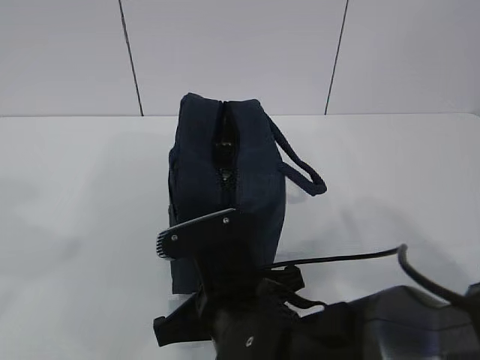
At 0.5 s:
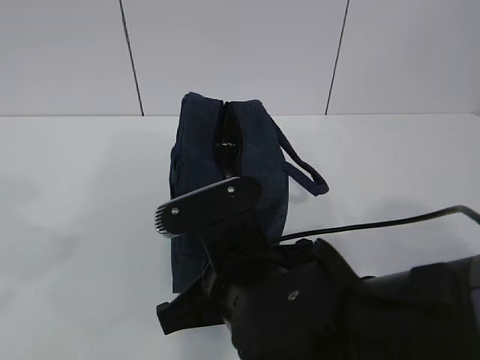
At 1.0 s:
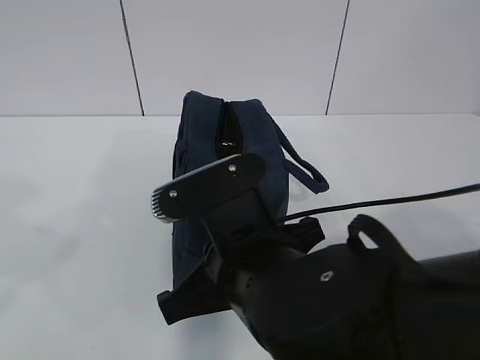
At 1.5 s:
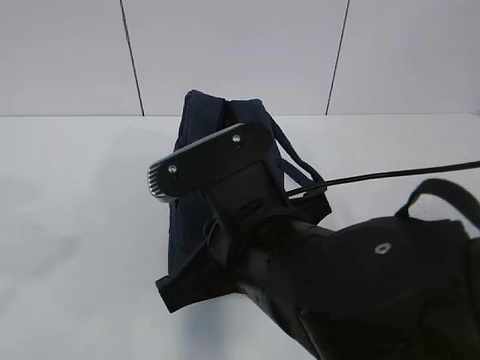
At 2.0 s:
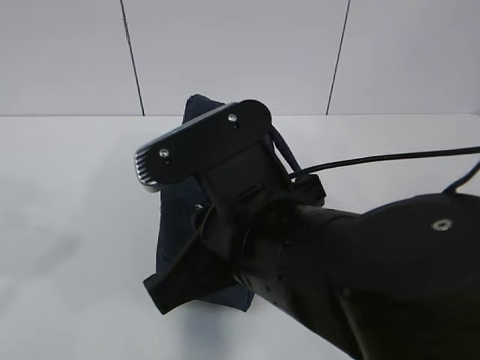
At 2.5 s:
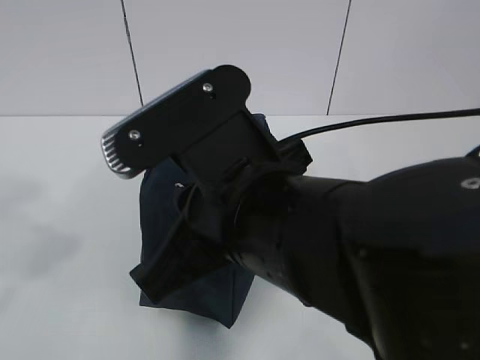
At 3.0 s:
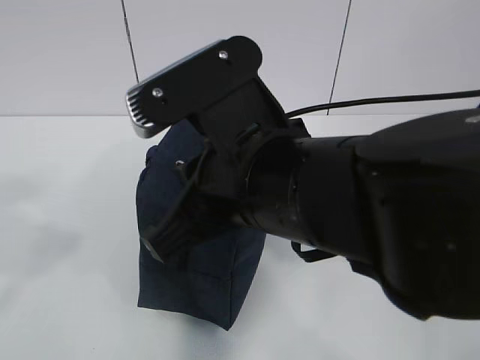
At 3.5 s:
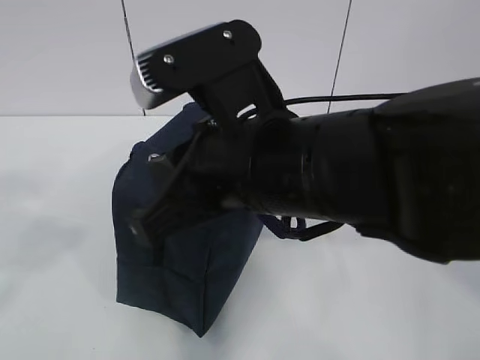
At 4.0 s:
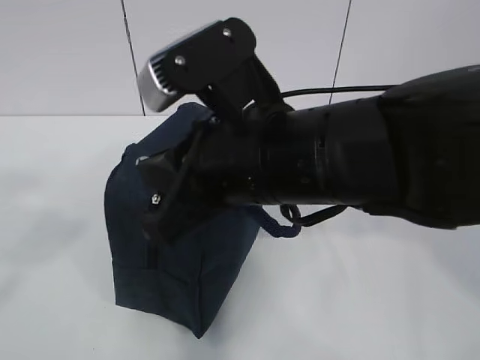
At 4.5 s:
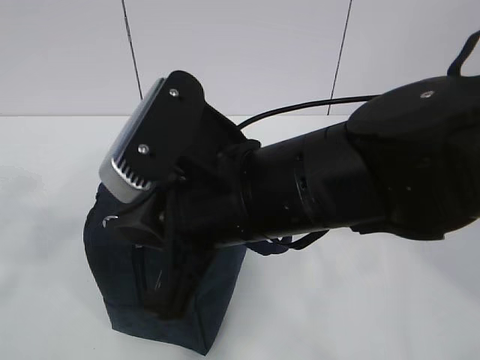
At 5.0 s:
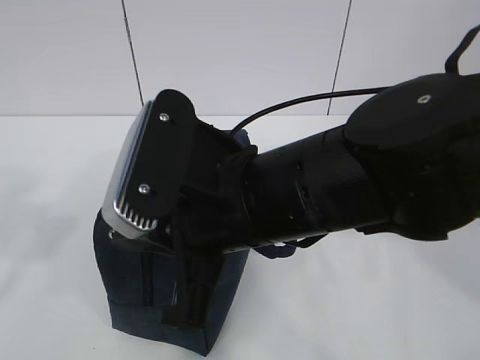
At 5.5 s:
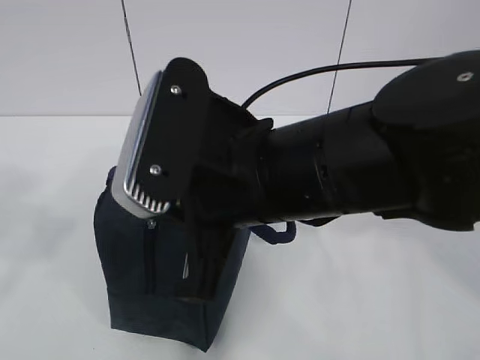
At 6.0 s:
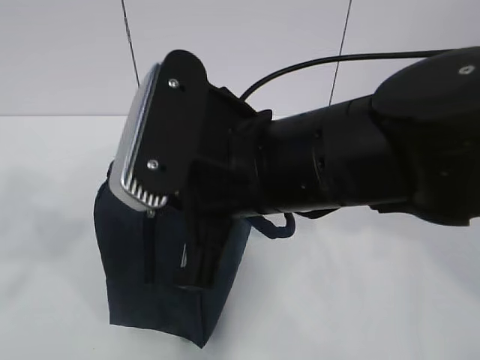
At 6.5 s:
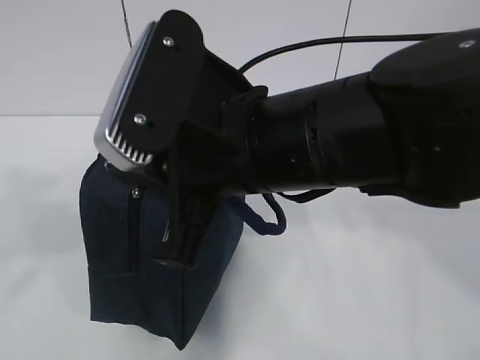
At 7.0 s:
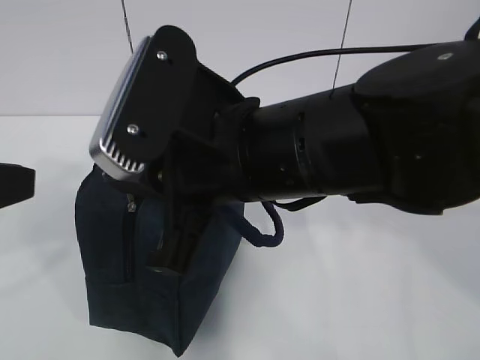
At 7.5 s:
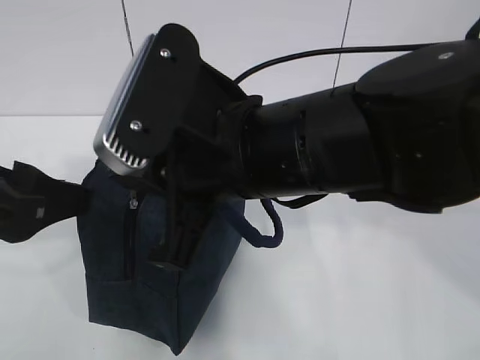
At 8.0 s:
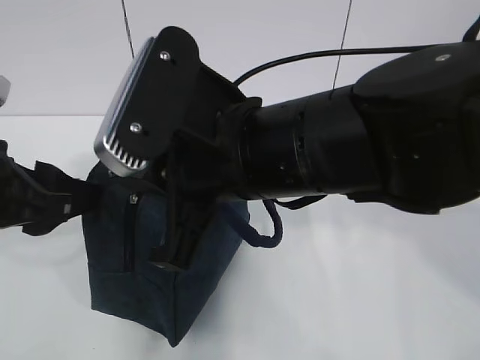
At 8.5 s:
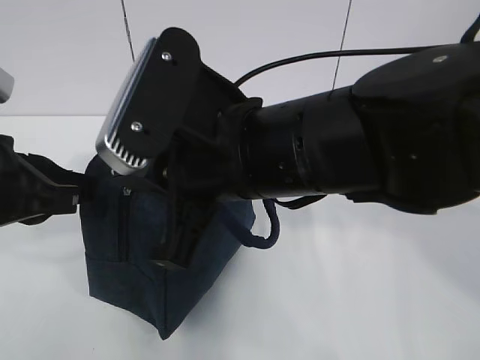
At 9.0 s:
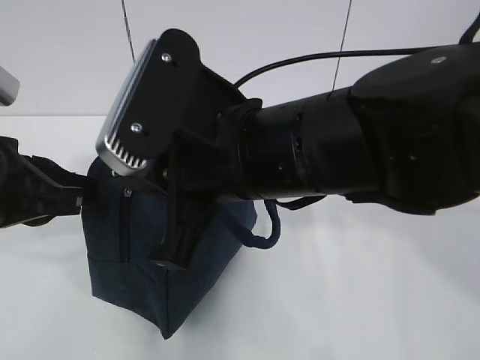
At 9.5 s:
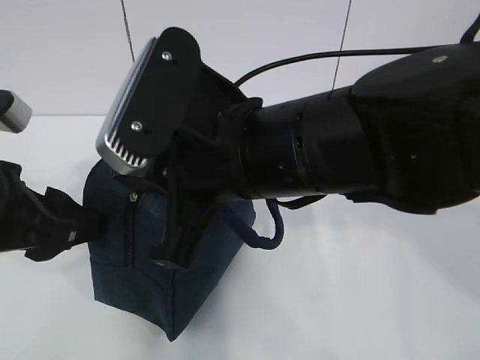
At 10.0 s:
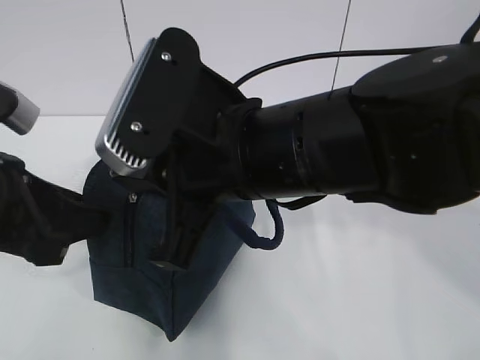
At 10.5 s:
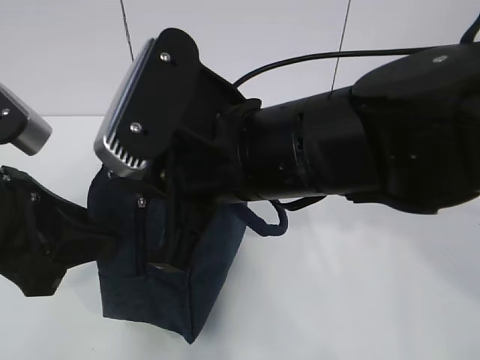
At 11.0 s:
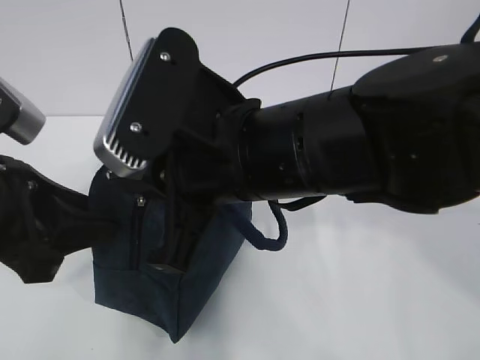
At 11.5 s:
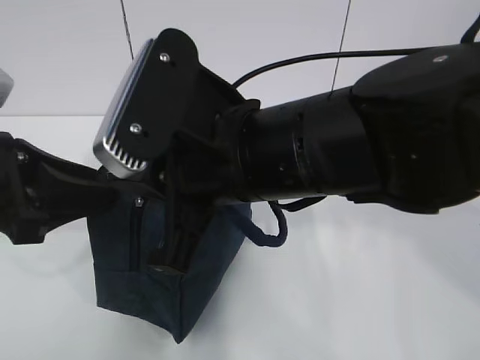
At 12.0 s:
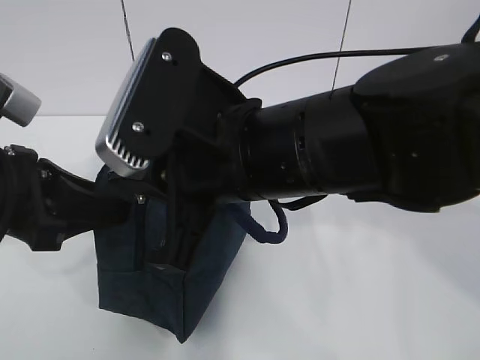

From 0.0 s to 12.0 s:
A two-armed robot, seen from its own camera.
From 0.0 s to 2.0 s: The right gripper heads upward, covering some 10 cm.
From 2.0 s to 4.0 s: The right gripper changes place by some 5 cm.
From 6.0 s to 8.0 s: The left gripper shifts approximately 15 cm forward, downward and to the right.
From 8.0 s to 10.0 s: The left gripper closes, then opens again.
From 10.0 s to 12.0 s: The grippers stay close to where they were, moving slightly.

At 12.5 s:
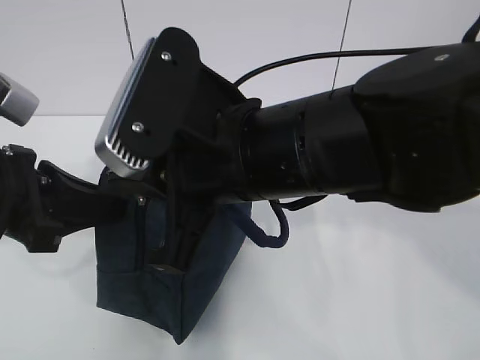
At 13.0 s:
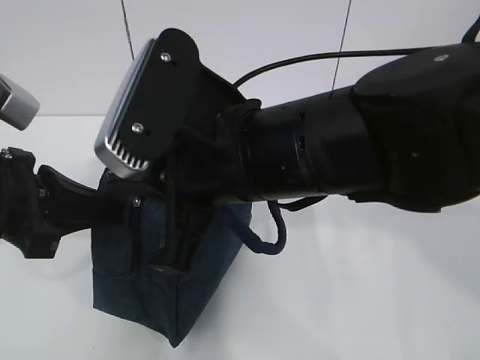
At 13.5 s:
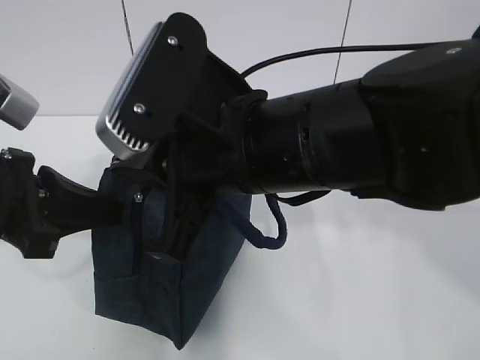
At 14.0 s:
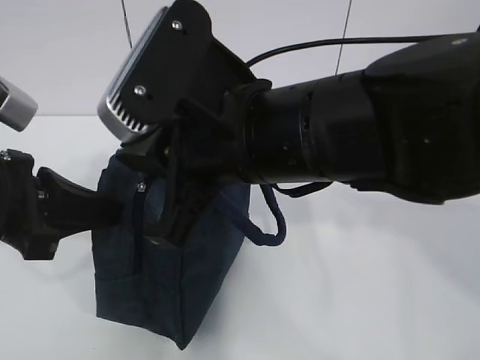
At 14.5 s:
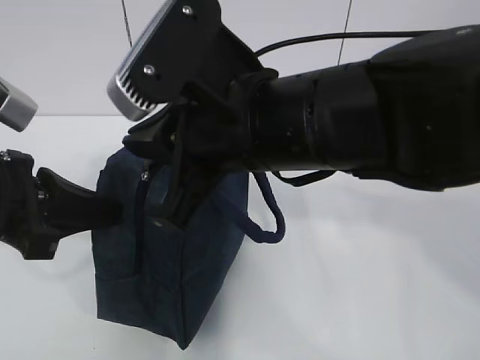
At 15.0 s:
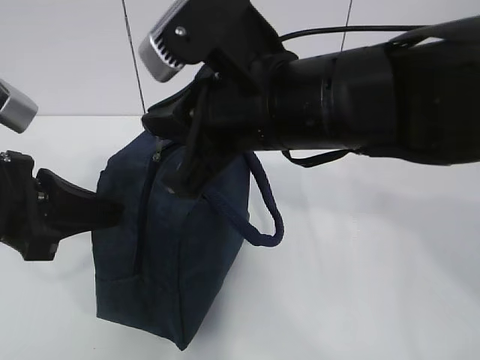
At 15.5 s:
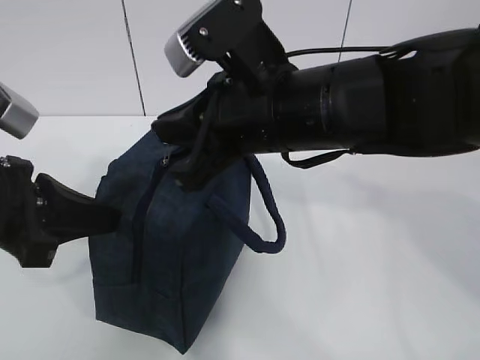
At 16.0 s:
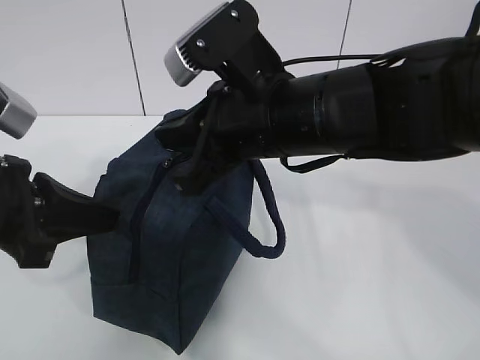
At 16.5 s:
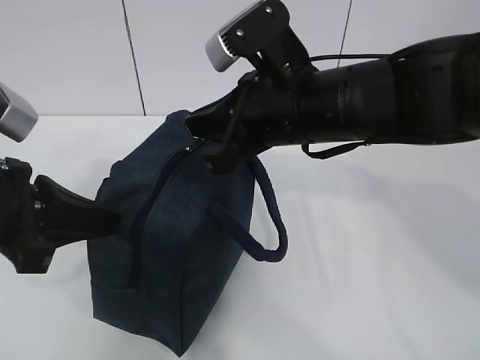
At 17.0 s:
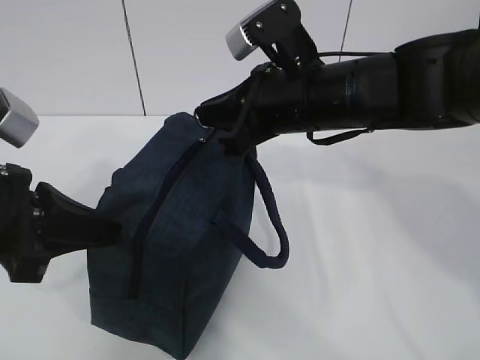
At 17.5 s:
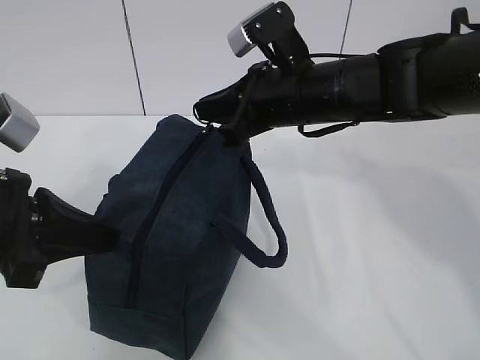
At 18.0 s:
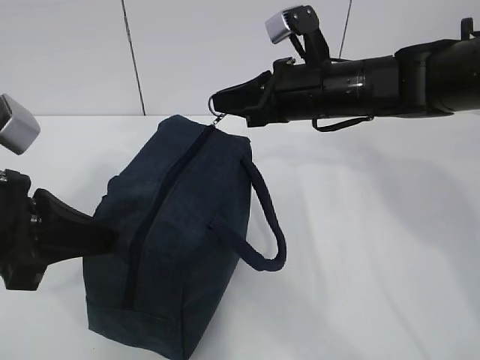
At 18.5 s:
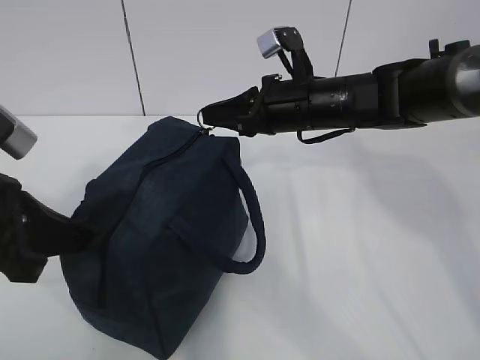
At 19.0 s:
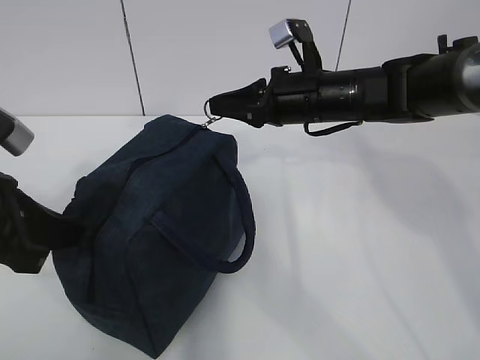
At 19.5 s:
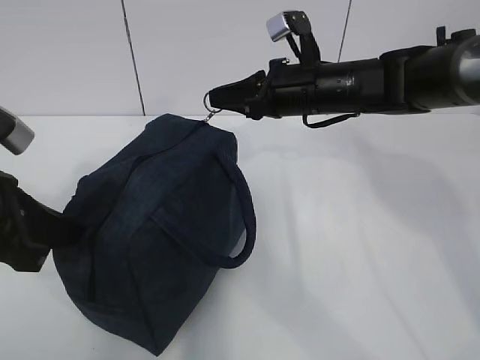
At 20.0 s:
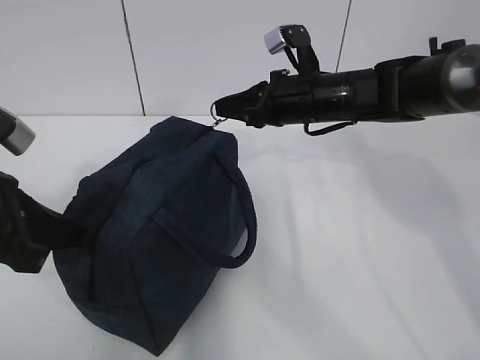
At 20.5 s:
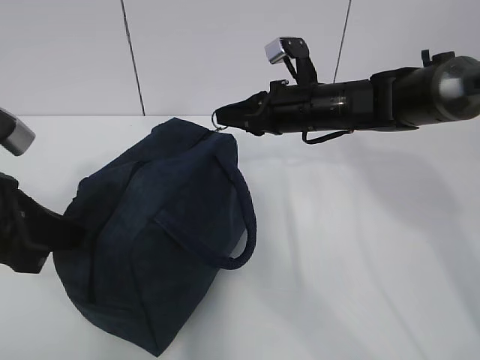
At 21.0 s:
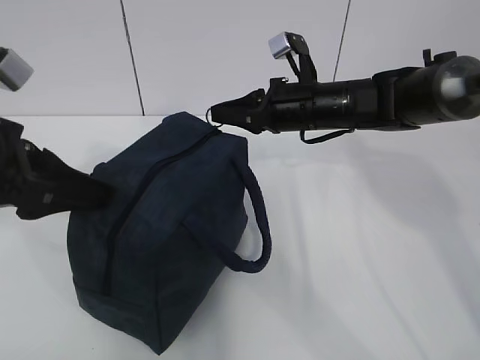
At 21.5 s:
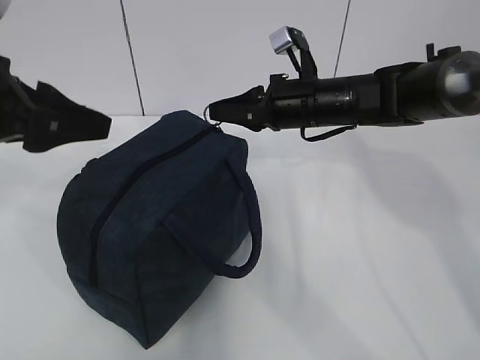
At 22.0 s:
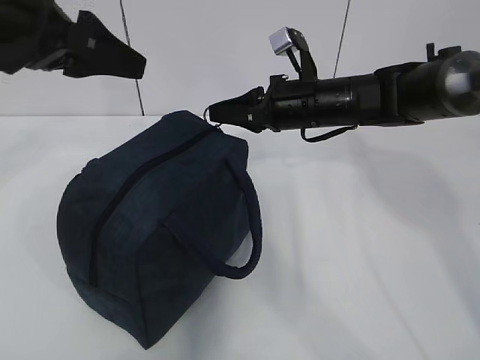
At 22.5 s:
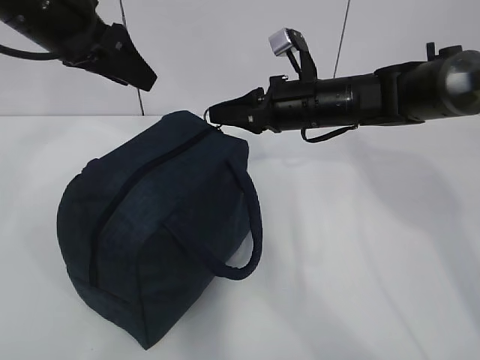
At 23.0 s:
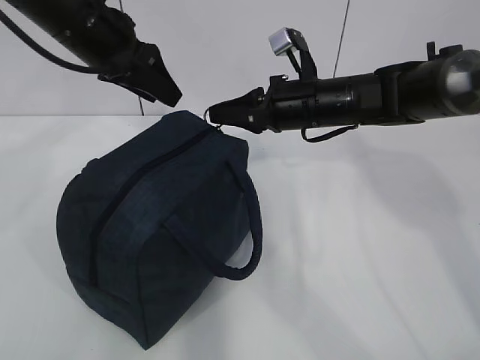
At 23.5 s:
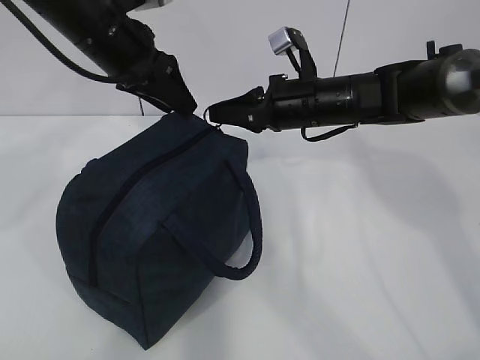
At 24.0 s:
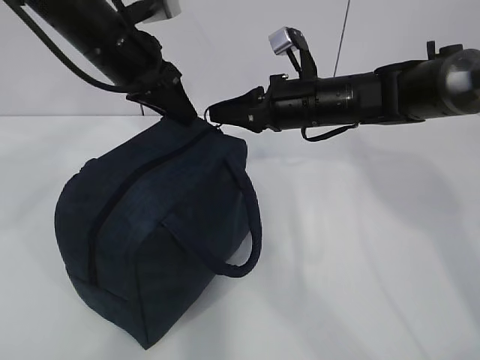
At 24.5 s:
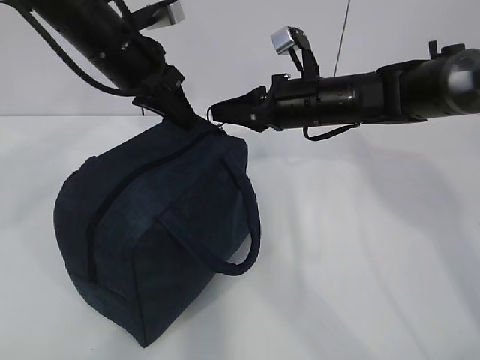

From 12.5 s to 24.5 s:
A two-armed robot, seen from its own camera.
From 12.5 s to 14.5 s: The grippers make only small movements.
From 14.5 s to 16.5 s: The right gripper goes about 5 cm forward.
From 16.5 s to 18.5 s: The right gripper shifts about 10 cm forward and downward.
From 18.5 s to 20.5 s: There are only small adjustments of the grippers.
From 20.5 s to 22.5 s: The left gripper heads forward and upward, covering about 20 cm, and opens its fingers.
From 22.5 s to 24.5 s: The left gripper shifts approximately 10 cm downward and to the right, and closes its fingers.

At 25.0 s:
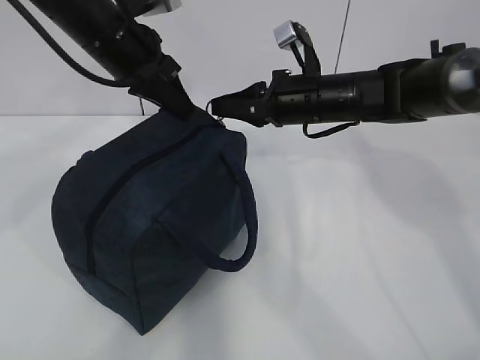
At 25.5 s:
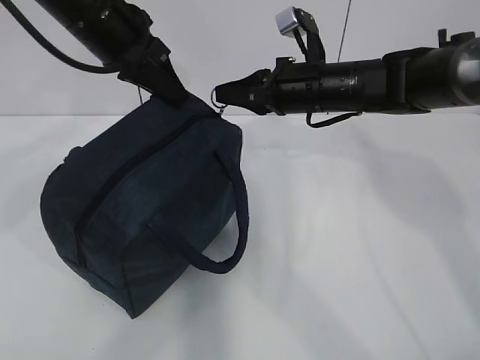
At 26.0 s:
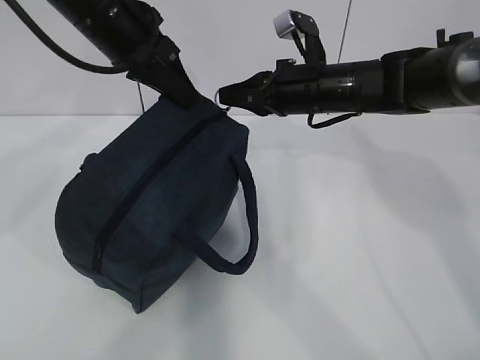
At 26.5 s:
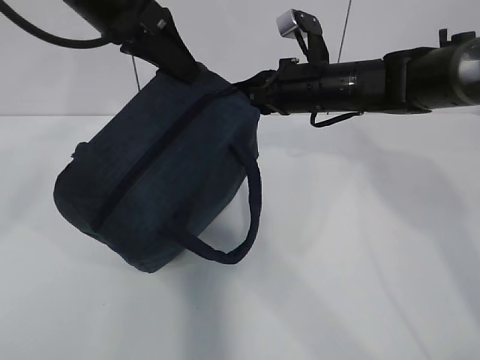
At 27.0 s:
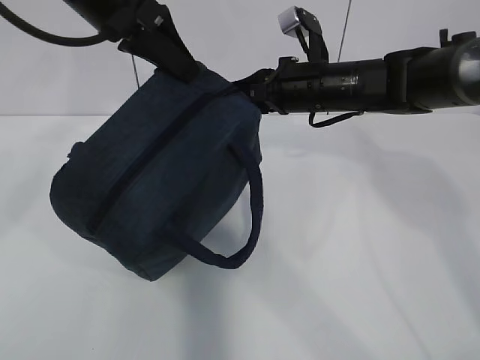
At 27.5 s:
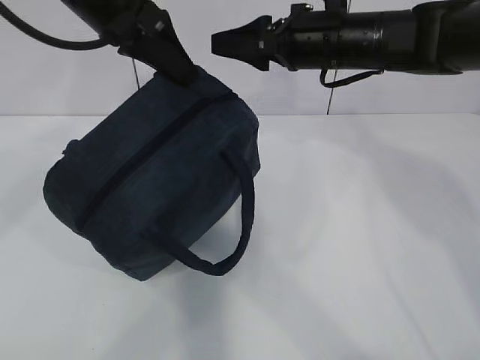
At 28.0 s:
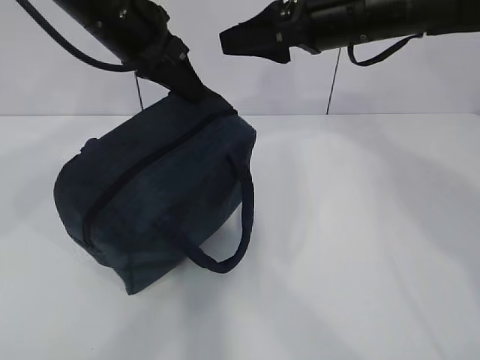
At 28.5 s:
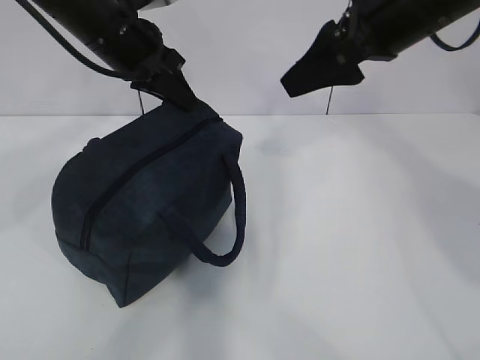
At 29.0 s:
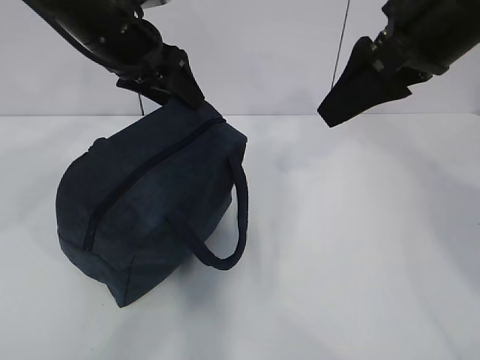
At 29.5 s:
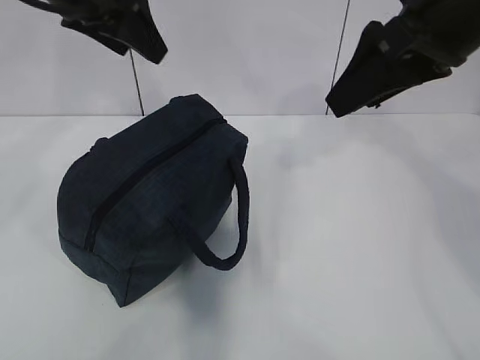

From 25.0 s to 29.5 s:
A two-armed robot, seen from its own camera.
From 25.0 s to 27.0 s: The left gripper moves upward, about 5 cm.
From 27.0 s to 29.5 s: The right gripper moves upward and backward, approximately 20 cm, and opens; the left gripper reaches about 5 cm downward, then returns, and opens.
